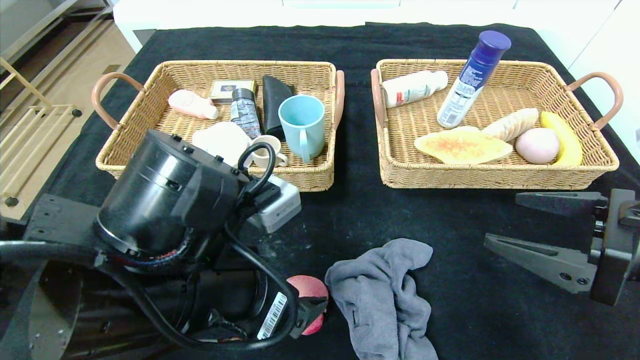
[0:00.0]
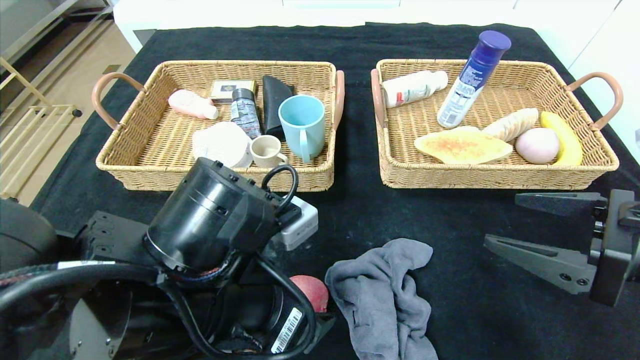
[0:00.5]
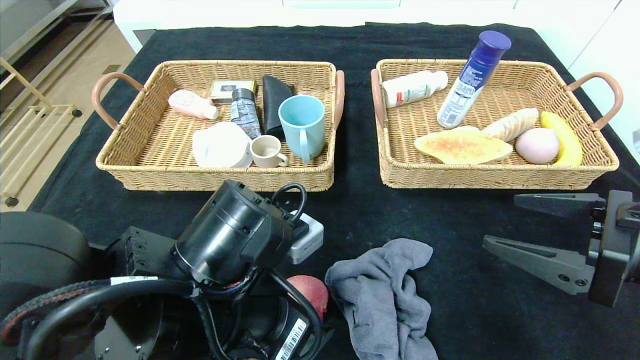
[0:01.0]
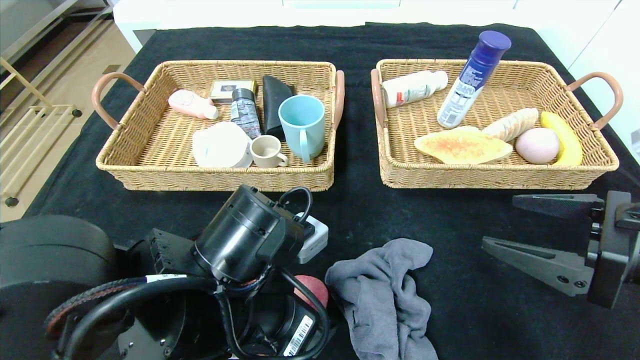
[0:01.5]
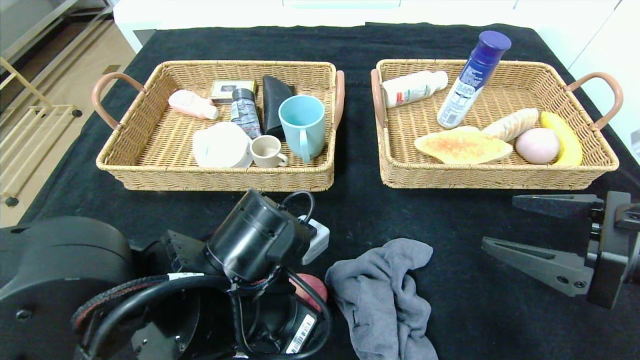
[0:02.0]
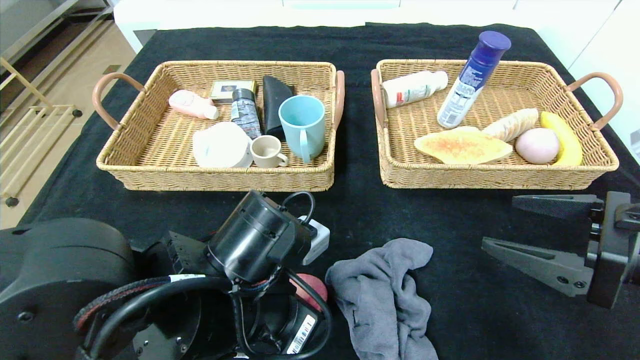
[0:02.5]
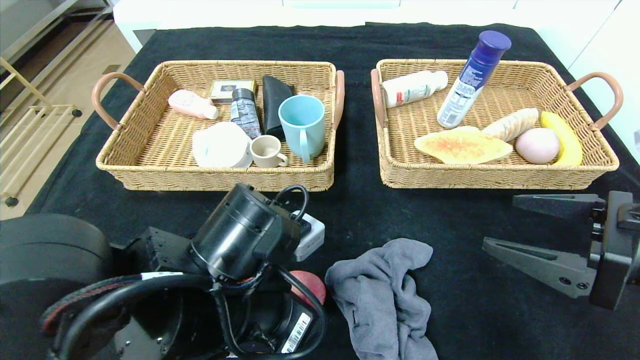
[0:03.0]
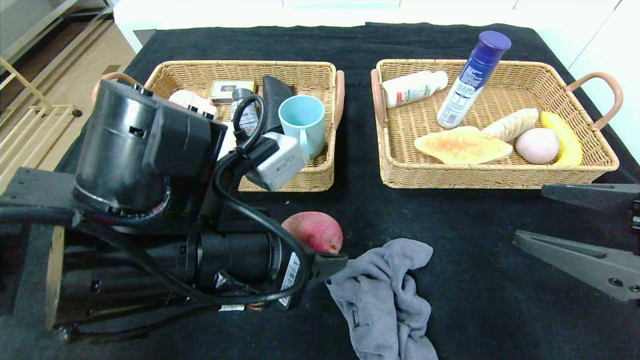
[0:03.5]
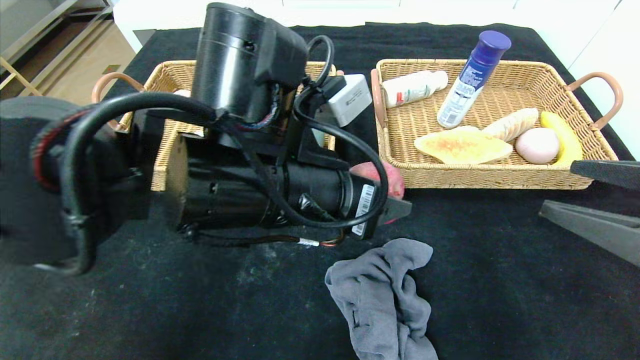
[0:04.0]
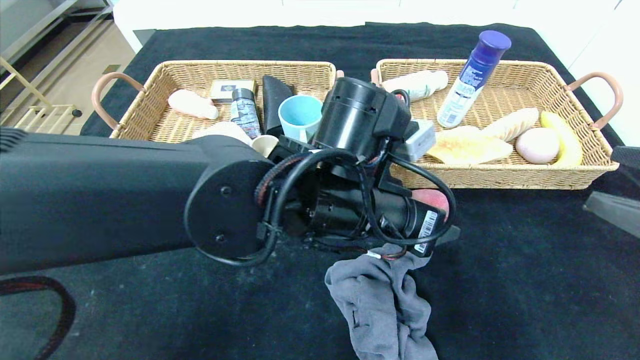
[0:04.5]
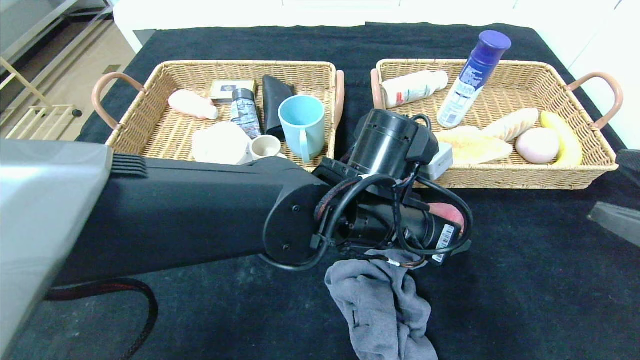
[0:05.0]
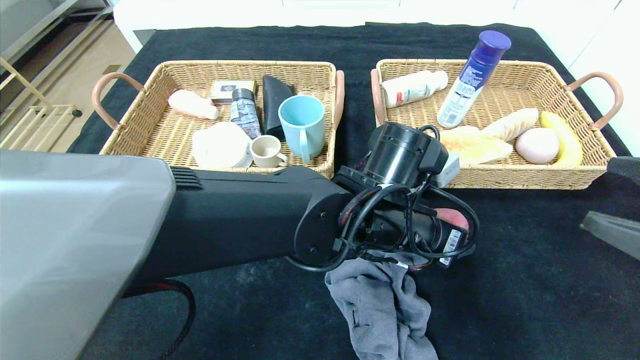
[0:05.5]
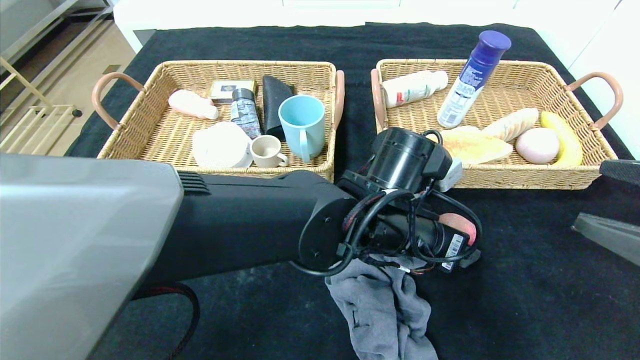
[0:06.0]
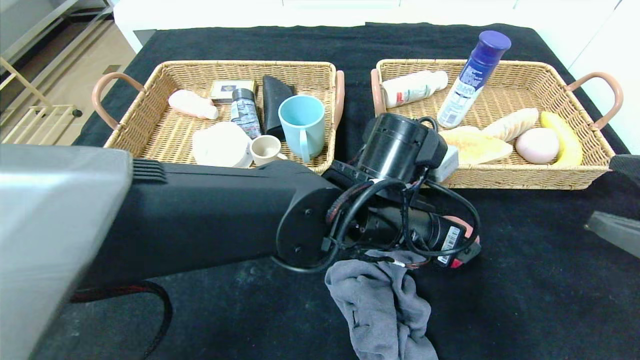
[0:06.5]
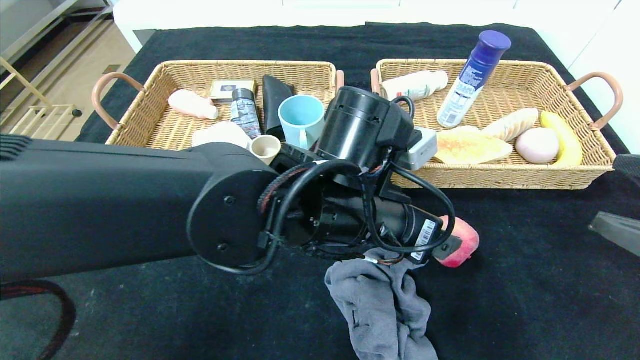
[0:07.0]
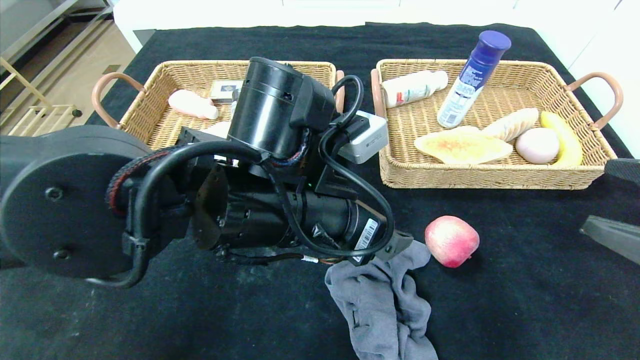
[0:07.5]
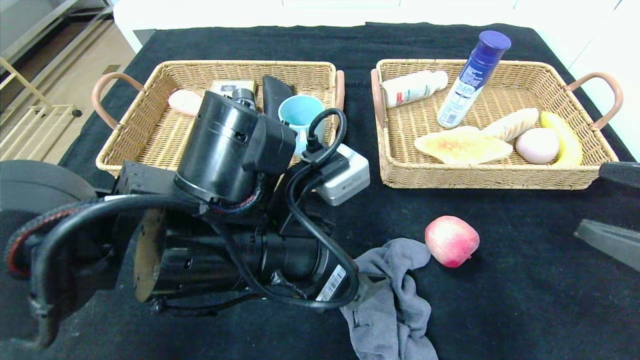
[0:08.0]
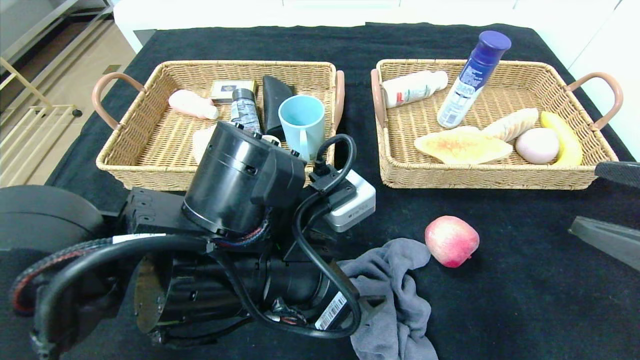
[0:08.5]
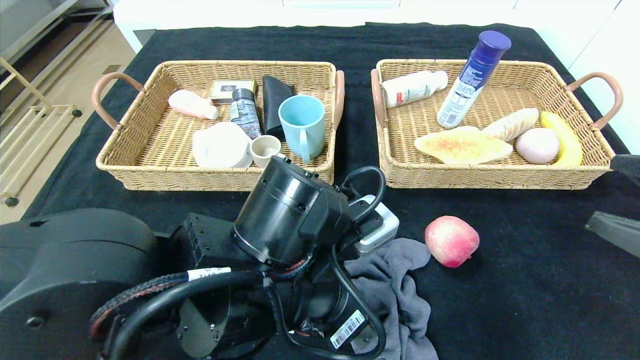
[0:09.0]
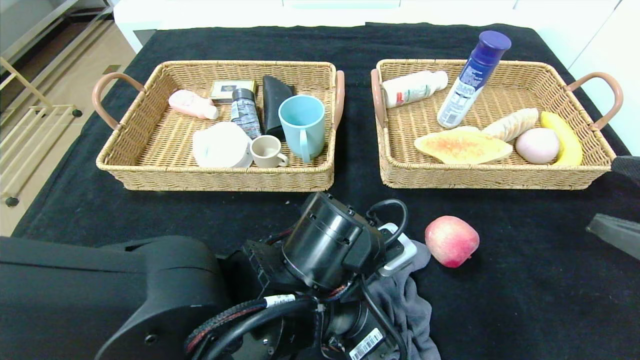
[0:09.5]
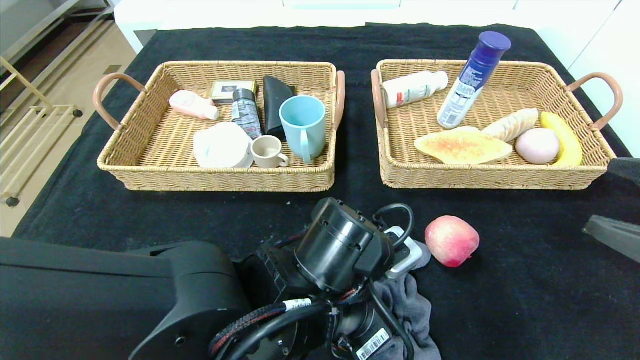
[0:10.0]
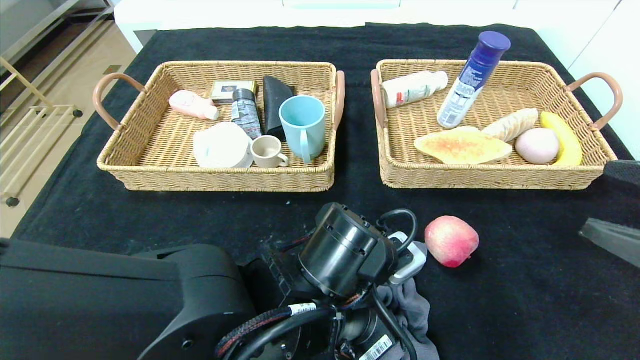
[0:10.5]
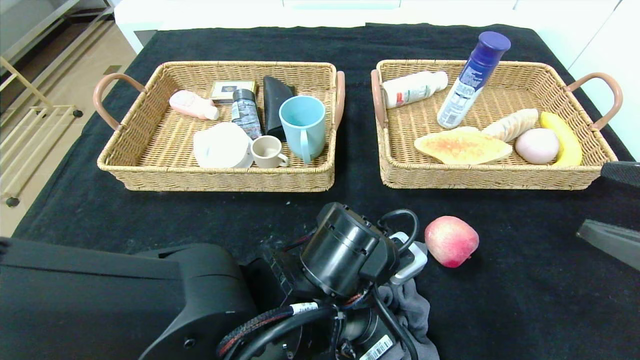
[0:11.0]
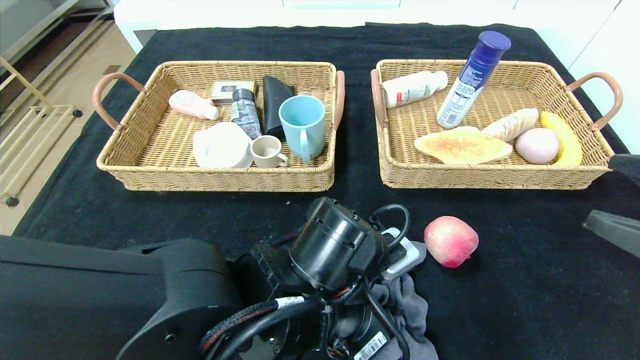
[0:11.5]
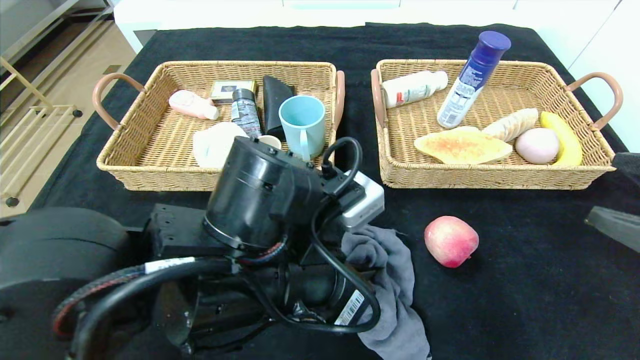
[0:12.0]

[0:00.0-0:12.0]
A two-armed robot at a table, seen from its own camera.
Step, 0:00.0 to 0:06.5: Place the peach in the center of the table.
0:00.0 to 0:02.0: The left gripper shifts by approximately 5 cm.
0:02.0 to 0:04.0: The right gripper shifts by roughly 5 cm. Meanwhile the left gripper heads upward, covering some 10 cm.
0:04.0 to 0:06.0: The left gripper travels to the right and downward by about 15 cm.
0:06.0 to 0:08.0: The left gripper is displaced to the left and backward by about 15 cm.
0:08.0 to 0:10.0: The left gripper goes some 10 cm downward and to the right, and closes up.
0:10.0 to 0:12.0: The left gripper moves upward, roughly 5 cm, and closes.

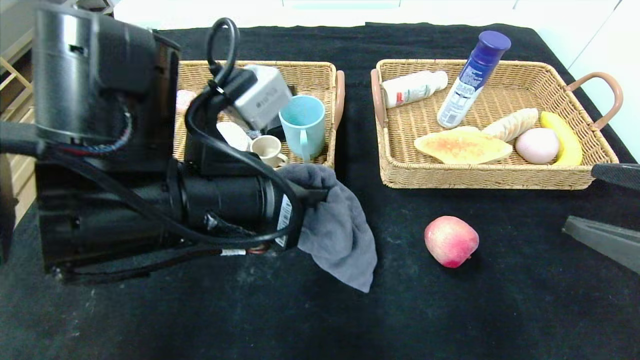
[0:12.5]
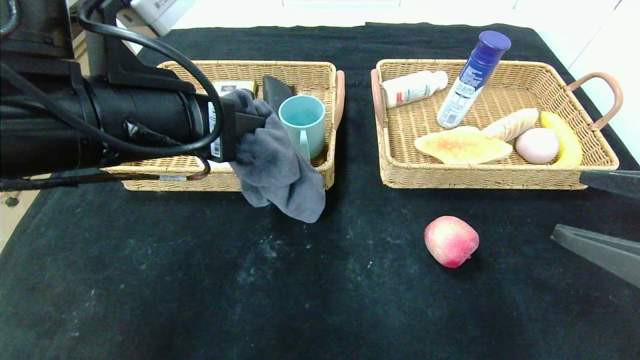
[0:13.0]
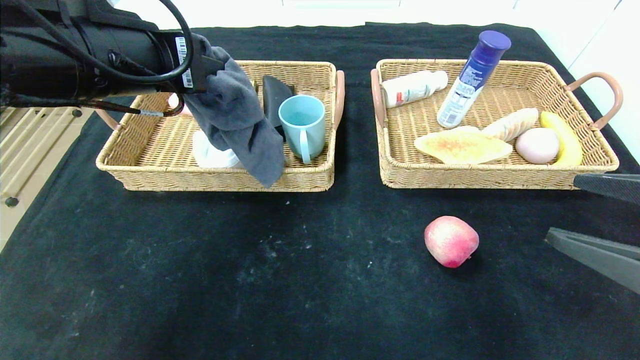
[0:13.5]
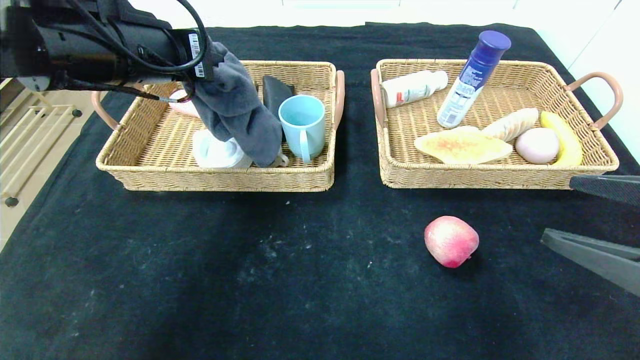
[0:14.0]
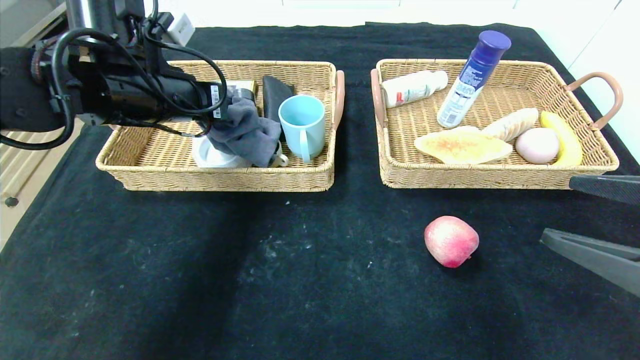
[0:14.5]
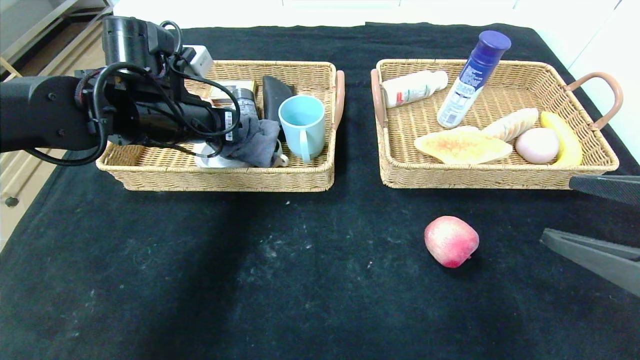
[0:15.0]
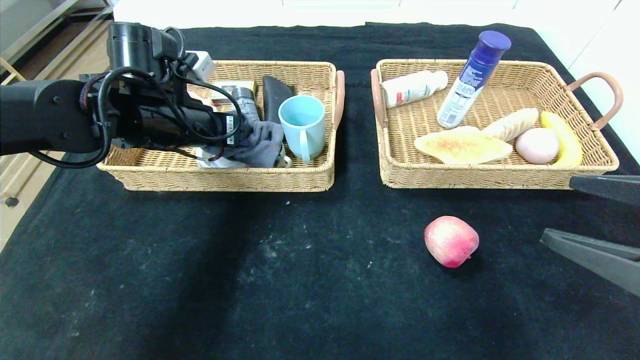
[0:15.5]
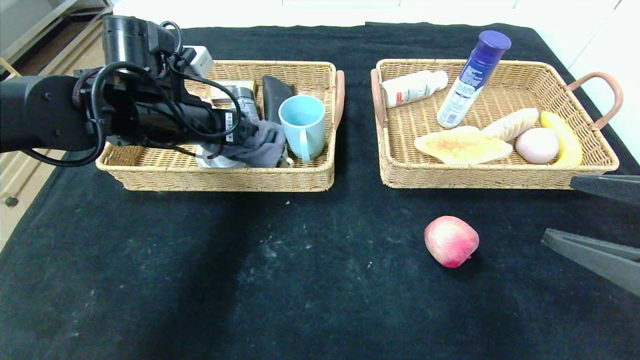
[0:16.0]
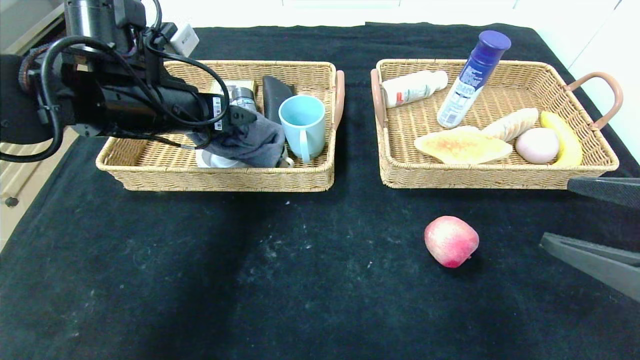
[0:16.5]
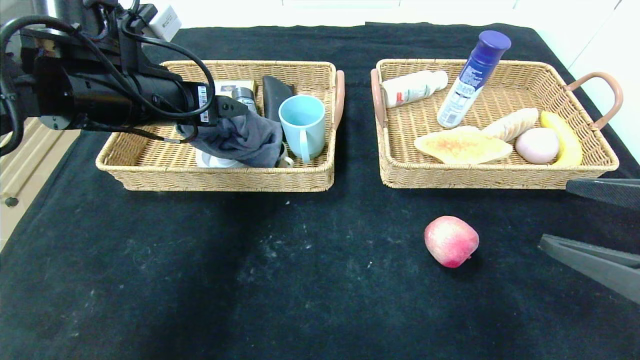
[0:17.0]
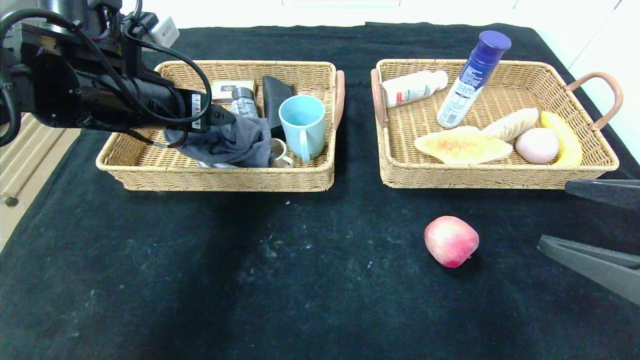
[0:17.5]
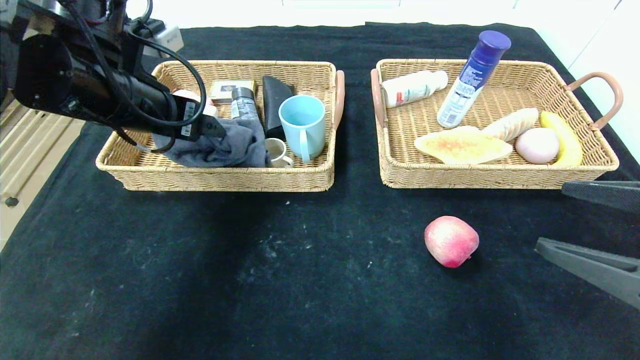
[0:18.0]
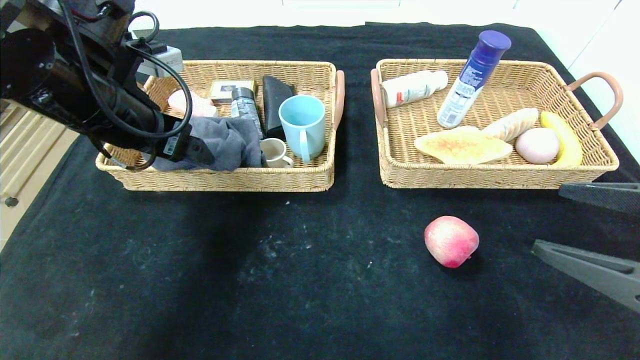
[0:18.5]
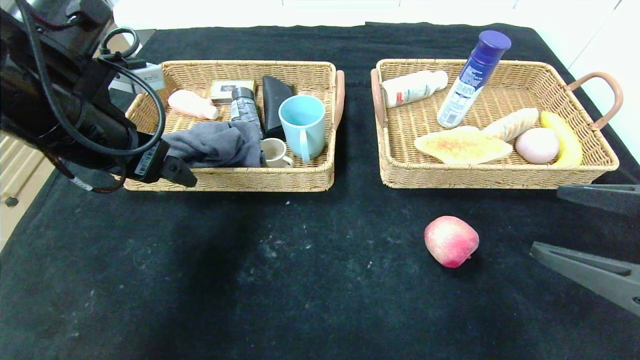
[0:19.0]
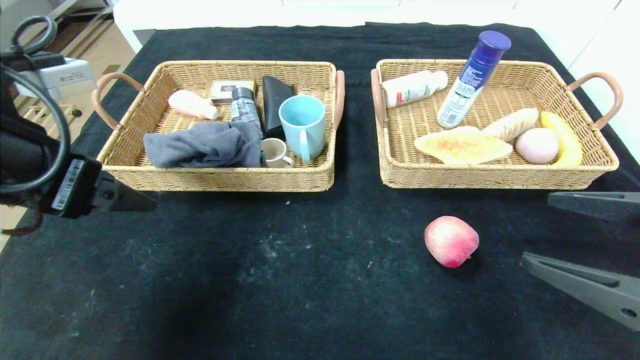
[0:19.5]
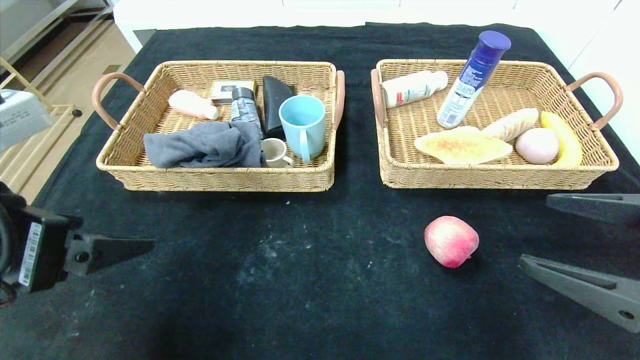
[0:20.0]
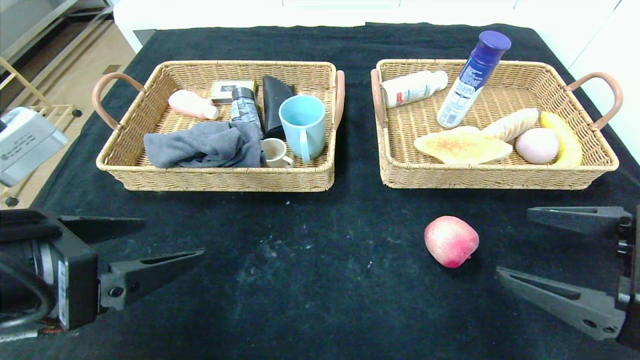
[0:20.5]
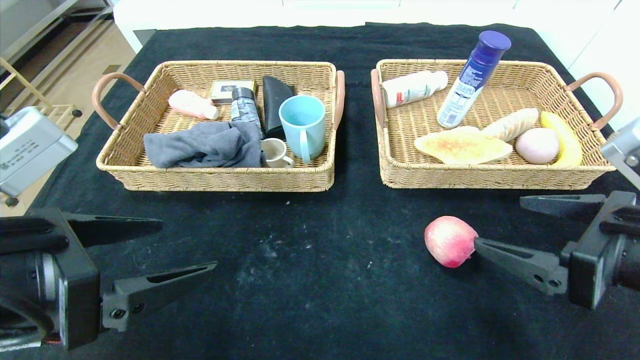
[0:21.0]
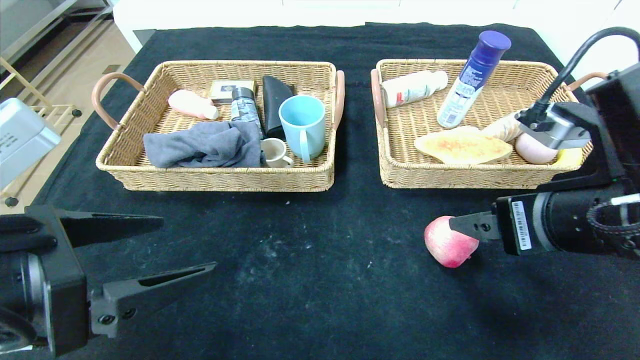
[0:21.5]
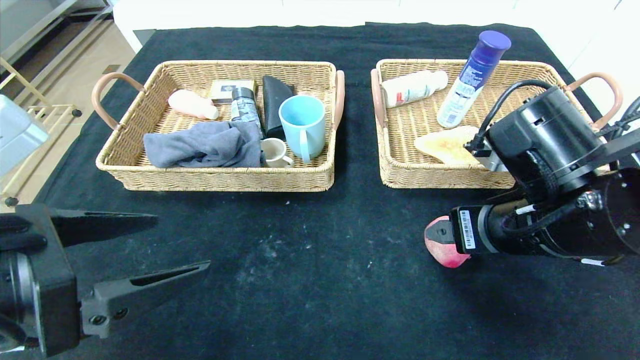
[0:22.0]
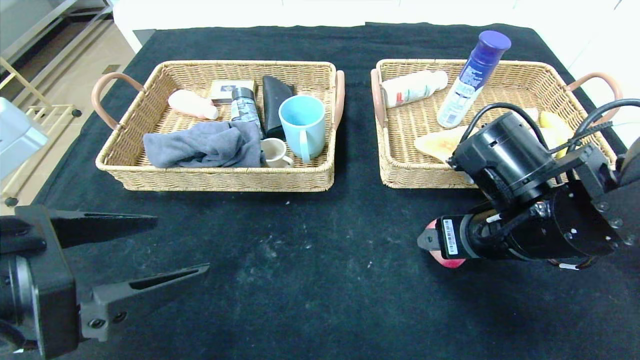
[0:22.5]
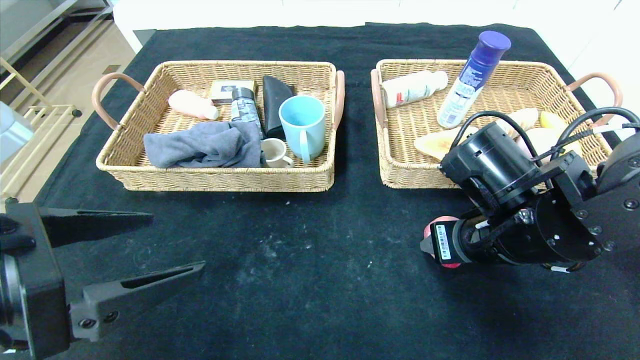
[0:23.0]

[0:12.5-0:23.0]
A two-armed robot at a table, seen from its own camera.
Step, 0:12.5 to 0:18.5: Grasp the gray towel and put it in the left basket.
0:12.5 to 0:14.5: The left gripper is displaced forward and to the left by about 20 cm.
0:14.5 to 0:16.5: The left gripper opens up.
0:16.5 to 0:19.0: The left gripper heads backward, covering some 5 cm.
0:19.0 to 0:21.0: The left gripper travels backward and downward by some 15 cm.
0:21.0 to 0:23.0: The right gripper goes roughly 10 cm forward and to the left, and closes its fingers.
